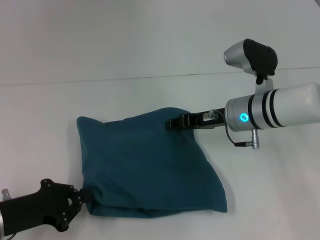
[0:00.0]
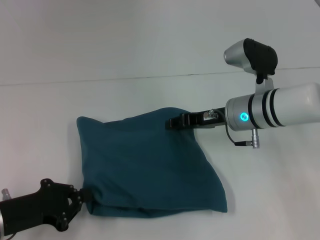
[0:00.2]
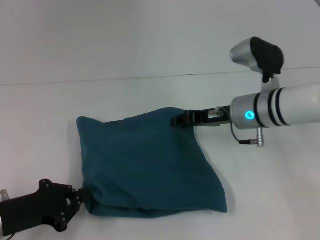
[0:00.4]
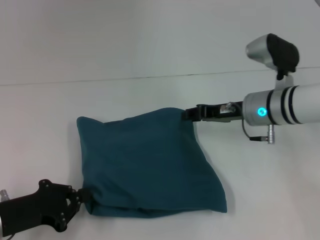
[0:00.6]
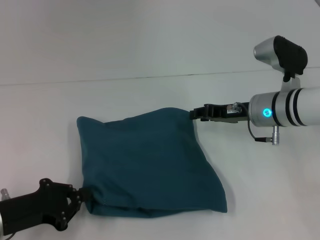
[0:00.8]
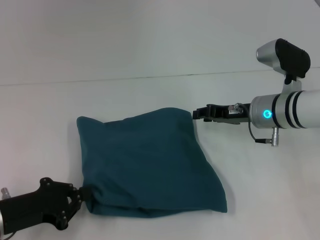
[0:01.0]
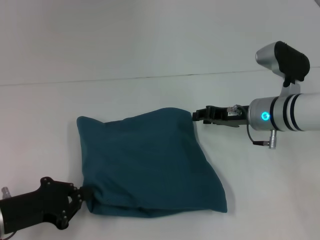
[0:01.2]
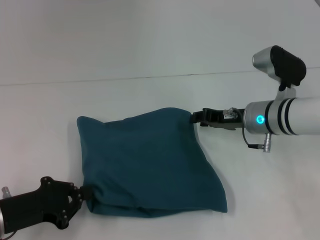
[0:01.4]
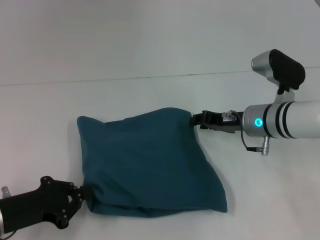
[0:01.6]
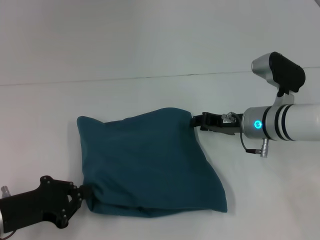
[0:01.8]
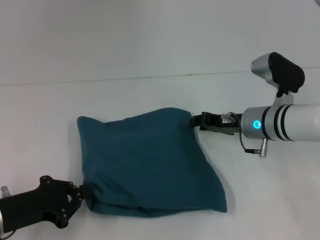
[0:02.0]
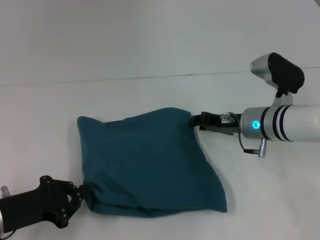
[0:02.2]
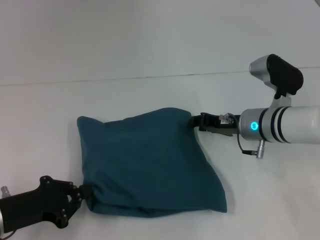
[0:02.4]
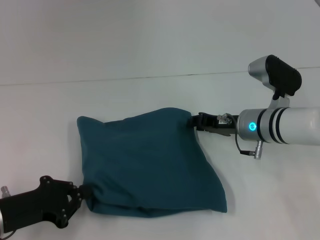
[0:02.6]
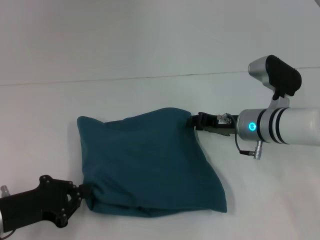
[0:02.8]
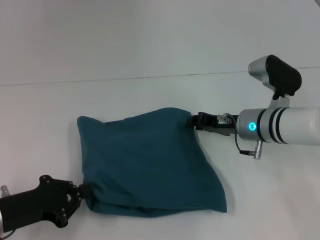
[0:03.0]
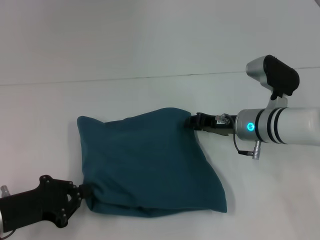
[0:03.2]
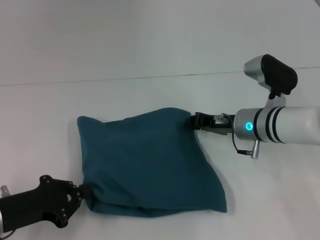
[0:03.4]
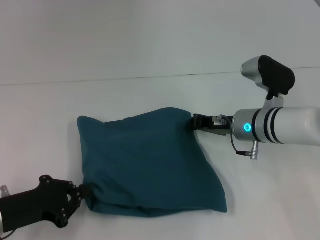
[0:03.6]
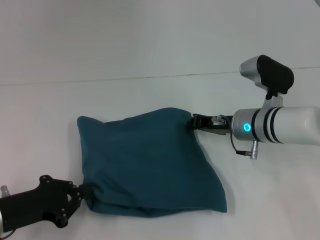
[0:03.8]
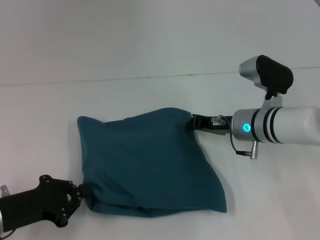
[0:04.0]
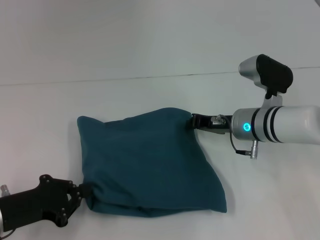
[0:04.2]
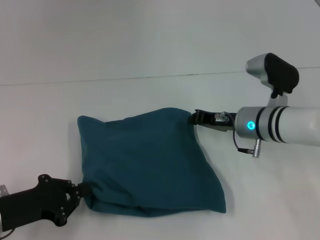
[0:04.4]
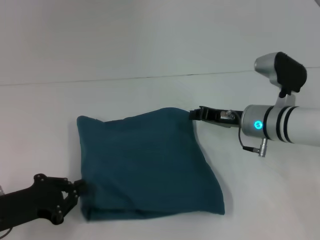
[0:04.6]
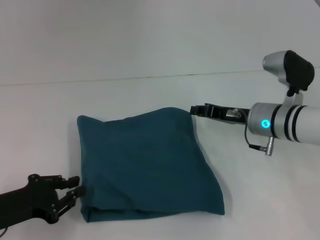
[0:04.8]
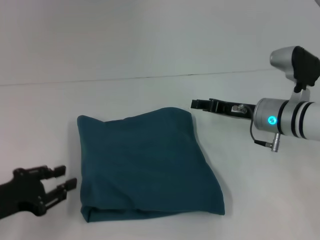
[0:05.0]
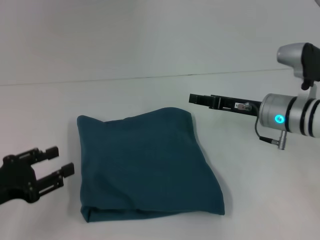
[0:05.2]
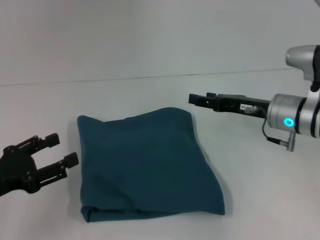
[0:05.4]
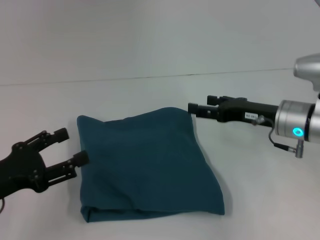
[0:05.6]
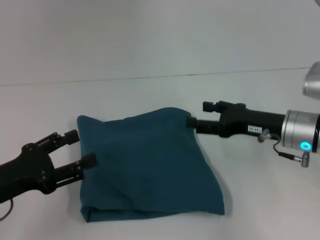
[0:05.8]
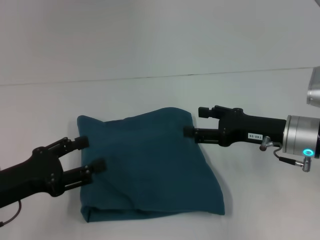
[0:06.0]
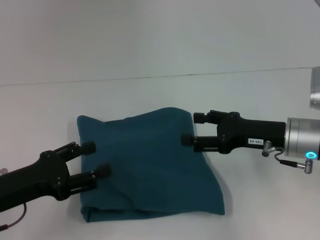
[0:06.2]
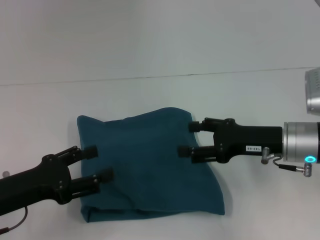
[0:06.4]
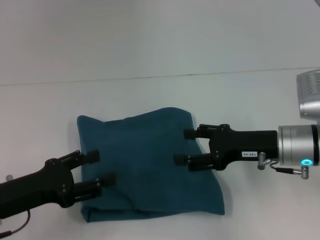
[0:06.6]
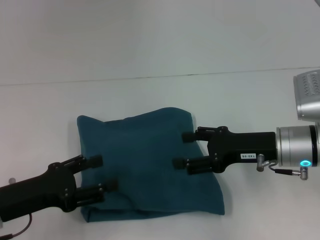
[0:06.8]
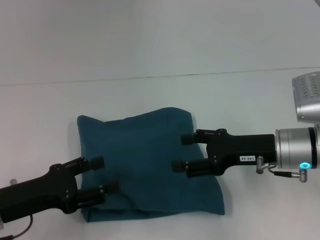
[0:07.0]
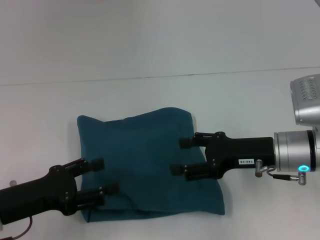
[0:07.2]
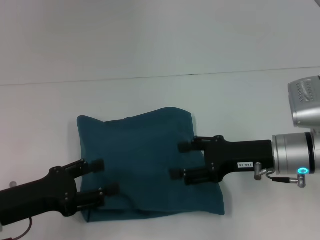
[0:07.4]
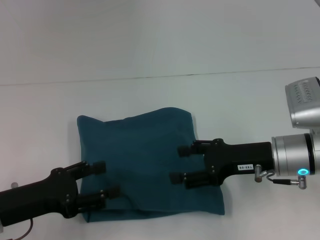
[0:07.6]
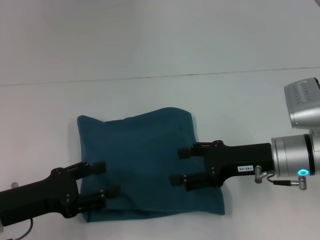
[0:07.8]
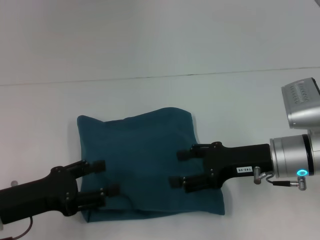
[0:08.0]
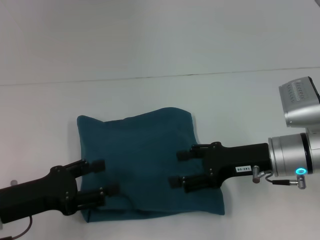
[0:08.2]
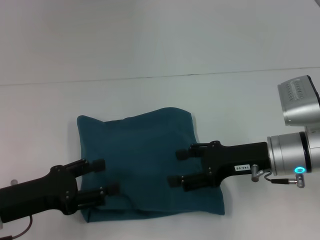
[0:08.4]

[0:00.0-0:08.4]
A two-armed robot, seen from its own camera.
0:00.0 to 0:04.2: The grippers move only a little.
0:04.2 to 0:05.6: The right gripper heads to the right, covering about 5 cm, and opens its fingers, while the left gripper opens.
0:07.0 to 0:08.4: The grippers move only a little.
